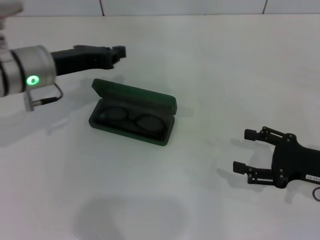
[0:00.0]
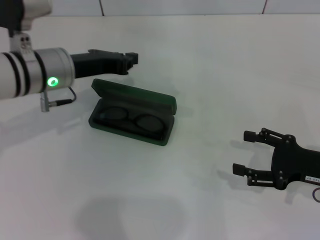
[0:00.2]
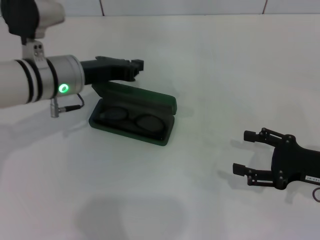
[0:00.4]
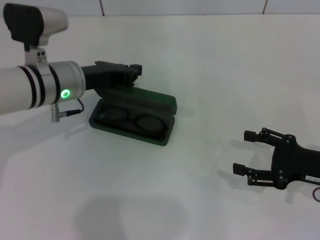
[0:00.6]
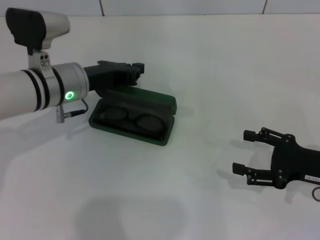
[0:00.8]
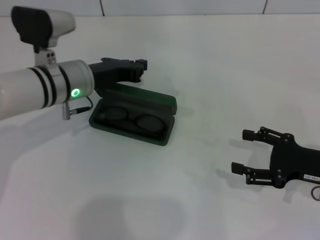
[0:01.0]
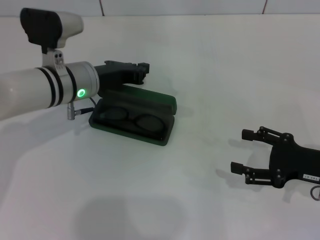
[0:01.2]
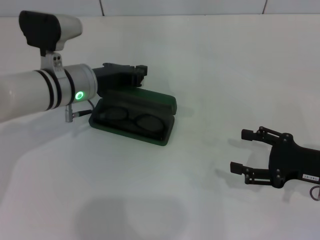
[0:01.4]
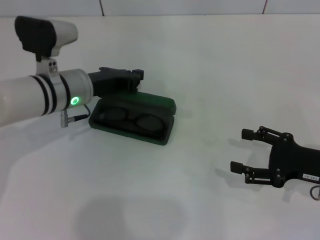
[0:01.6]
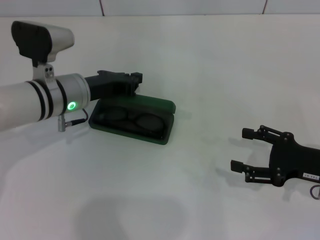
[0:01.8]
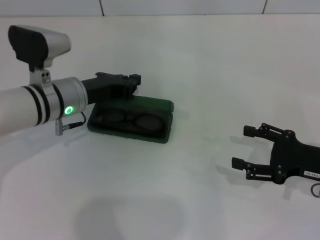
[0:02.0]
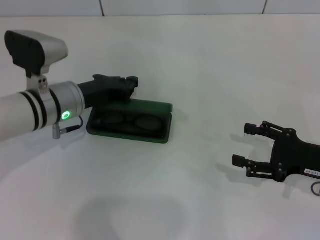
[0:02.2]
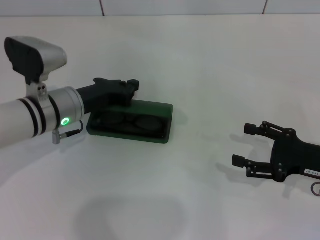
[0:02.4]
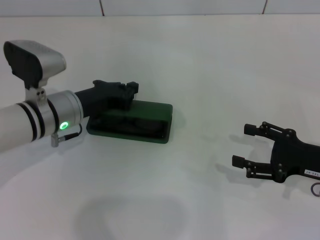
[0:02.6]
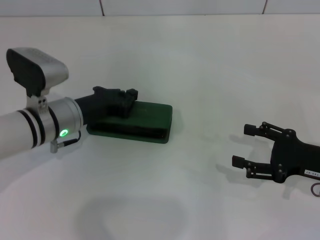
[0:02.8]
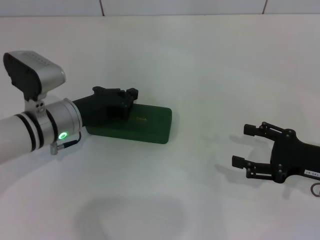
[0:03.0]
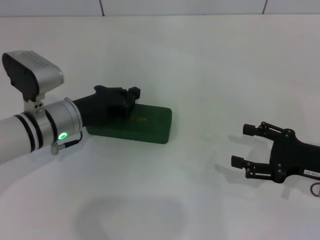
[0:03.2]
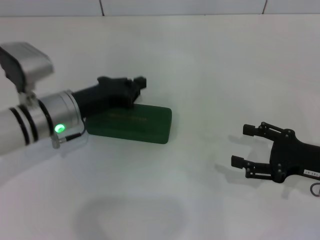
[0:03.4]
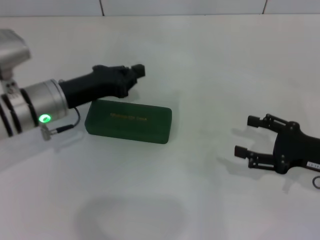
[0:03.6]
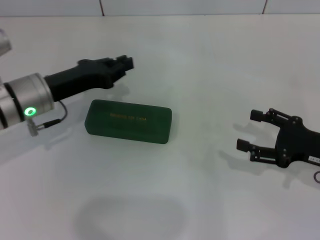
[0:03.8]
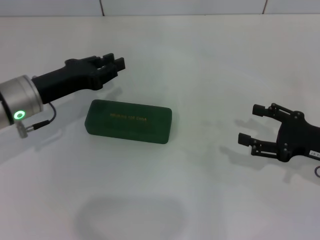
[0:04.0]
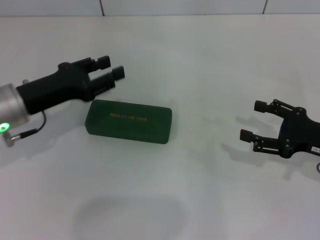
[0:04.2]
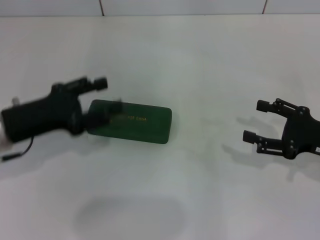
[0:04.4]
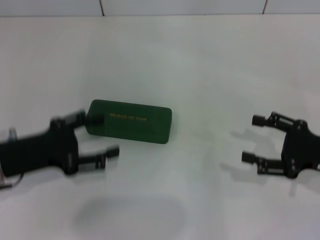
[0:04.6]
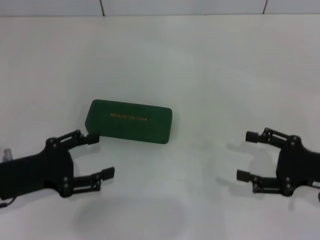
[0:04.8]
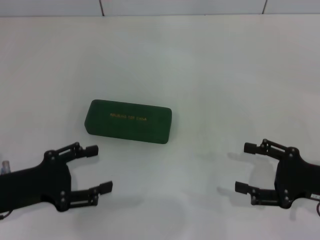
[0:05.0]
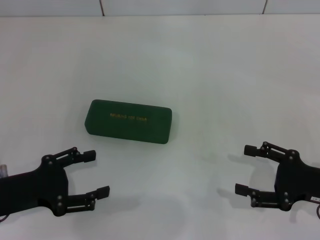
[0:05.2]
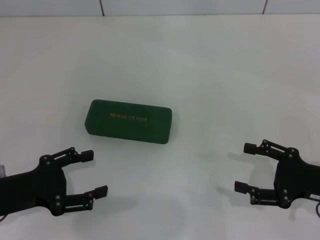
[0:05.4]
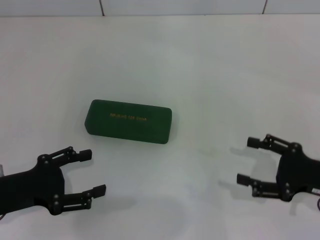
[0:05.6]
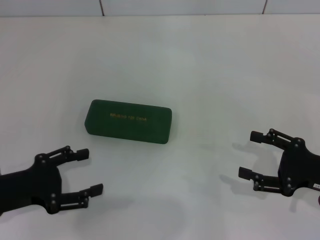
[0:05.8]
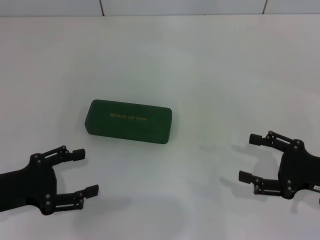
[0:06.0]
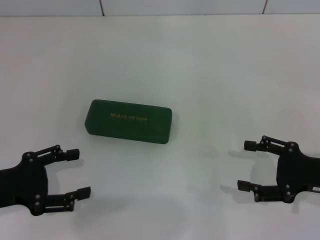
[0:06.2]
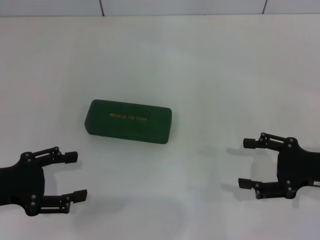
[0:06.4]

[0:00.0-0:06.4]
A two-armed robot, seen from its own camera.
Step, 0.0 to 2.8 s: Close the glasses case with your left hand.
0.0 to 1.6 s: The left gripper travels downward by roughly 5 cm.
1.6 to 3.2 s: The left gripper moves roughly 5 cm.
3.2 to 4.8 s: The left gripper heads backward and to the left, covering some 15 cm, and opens.
4.8 to 6.4 s: The grippers make only small movements.

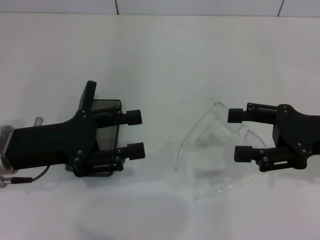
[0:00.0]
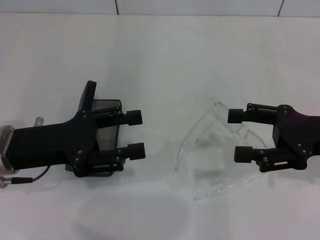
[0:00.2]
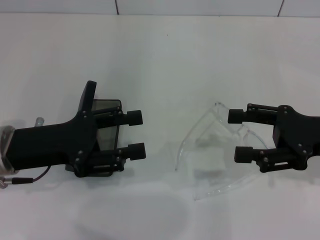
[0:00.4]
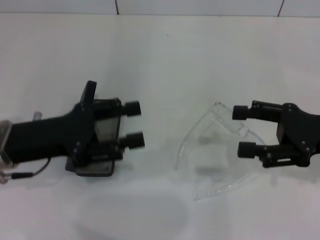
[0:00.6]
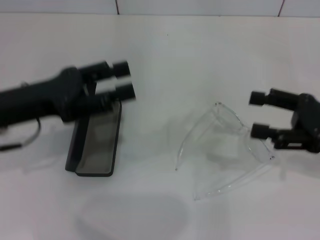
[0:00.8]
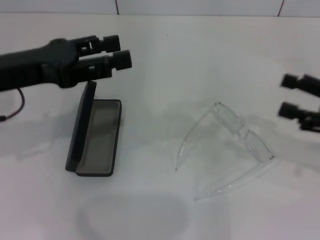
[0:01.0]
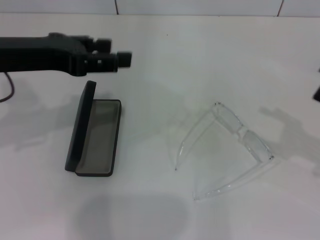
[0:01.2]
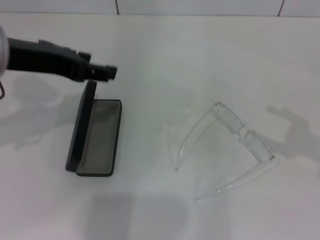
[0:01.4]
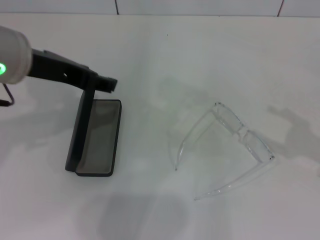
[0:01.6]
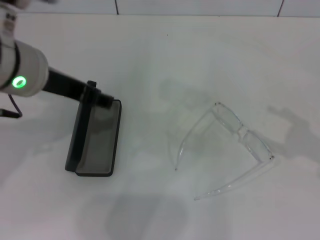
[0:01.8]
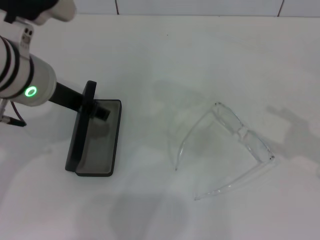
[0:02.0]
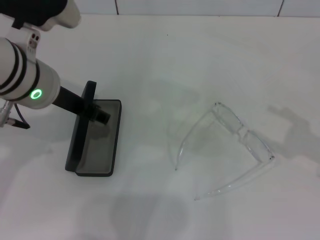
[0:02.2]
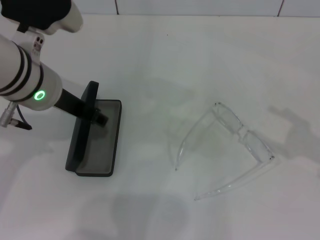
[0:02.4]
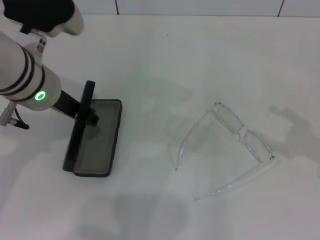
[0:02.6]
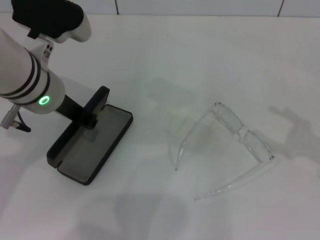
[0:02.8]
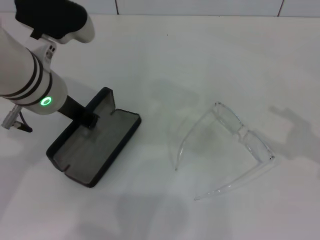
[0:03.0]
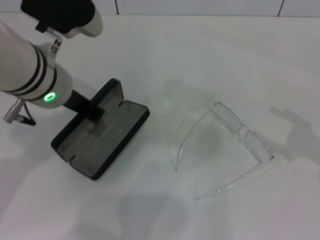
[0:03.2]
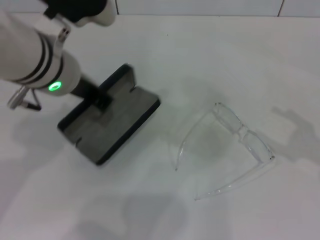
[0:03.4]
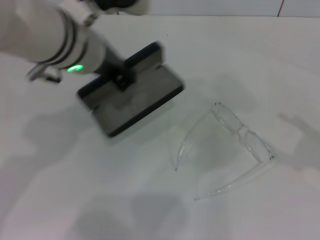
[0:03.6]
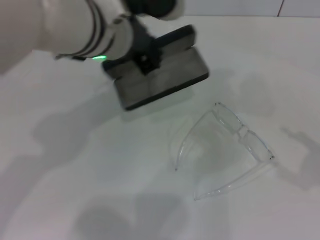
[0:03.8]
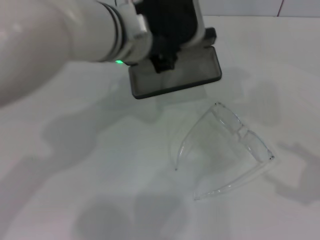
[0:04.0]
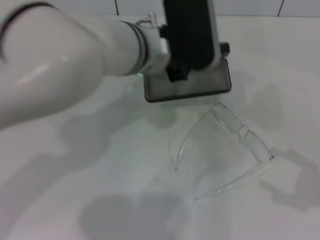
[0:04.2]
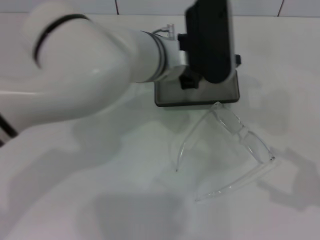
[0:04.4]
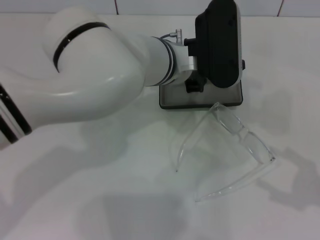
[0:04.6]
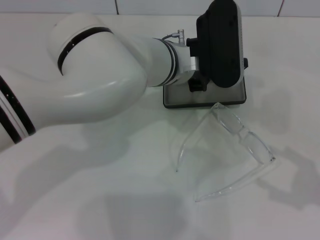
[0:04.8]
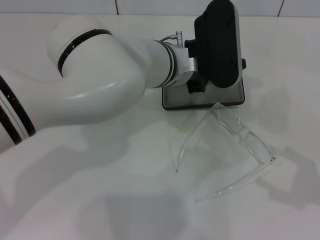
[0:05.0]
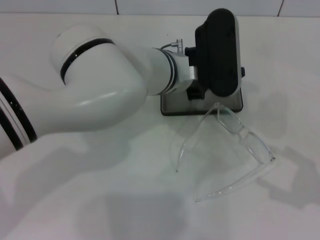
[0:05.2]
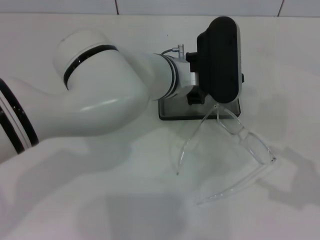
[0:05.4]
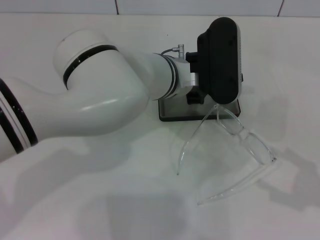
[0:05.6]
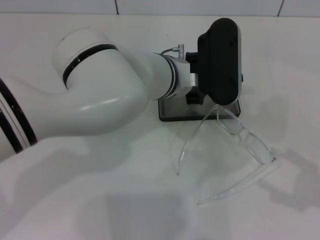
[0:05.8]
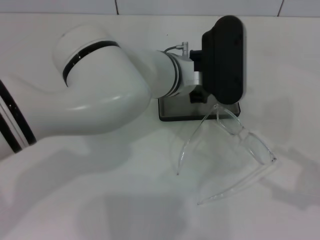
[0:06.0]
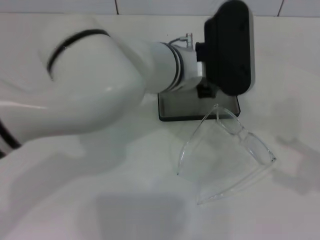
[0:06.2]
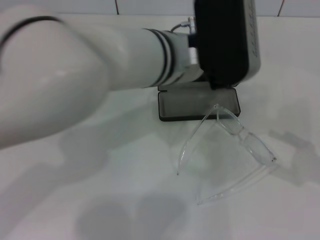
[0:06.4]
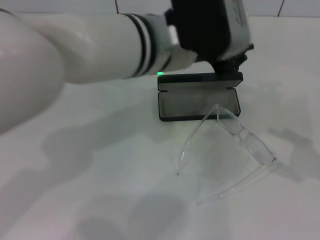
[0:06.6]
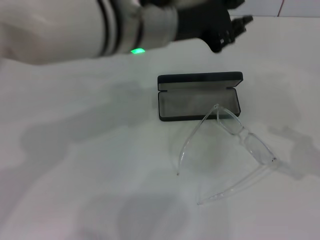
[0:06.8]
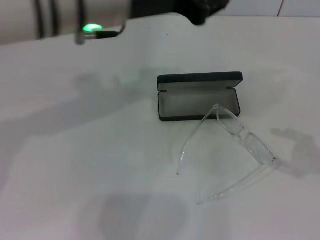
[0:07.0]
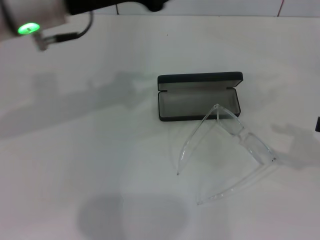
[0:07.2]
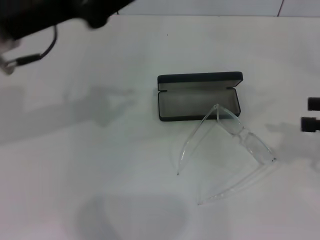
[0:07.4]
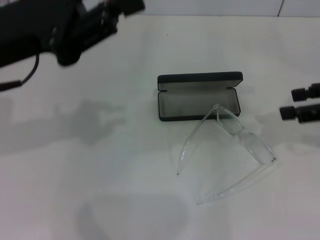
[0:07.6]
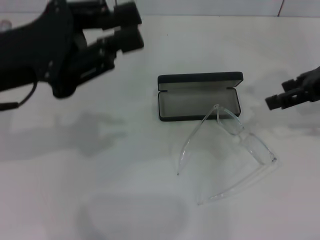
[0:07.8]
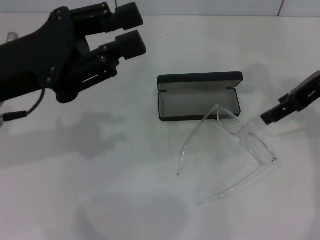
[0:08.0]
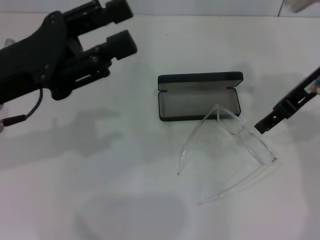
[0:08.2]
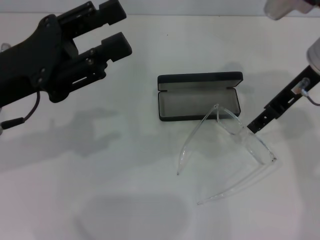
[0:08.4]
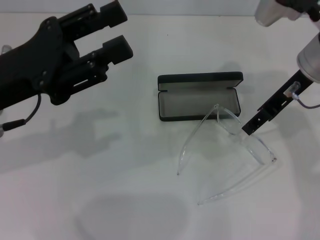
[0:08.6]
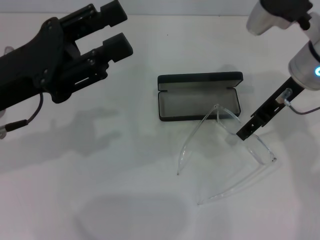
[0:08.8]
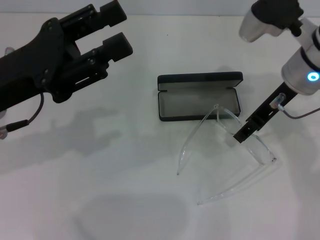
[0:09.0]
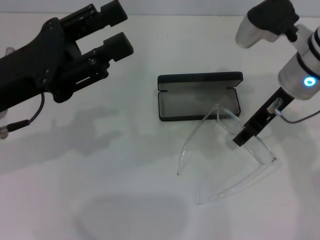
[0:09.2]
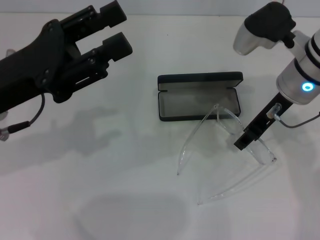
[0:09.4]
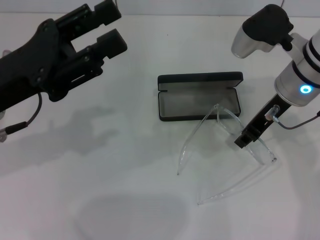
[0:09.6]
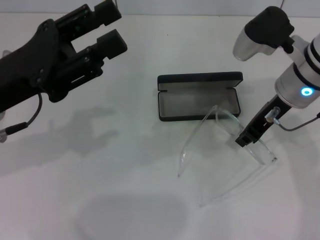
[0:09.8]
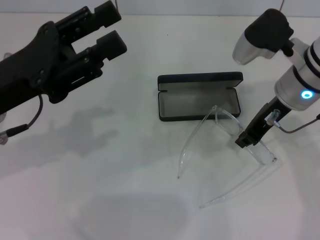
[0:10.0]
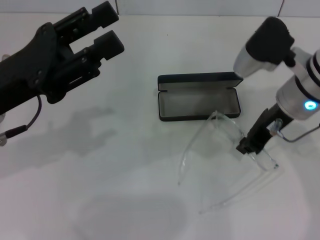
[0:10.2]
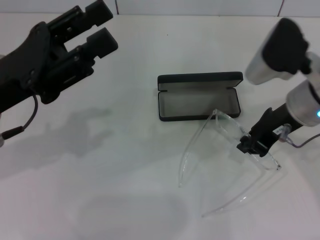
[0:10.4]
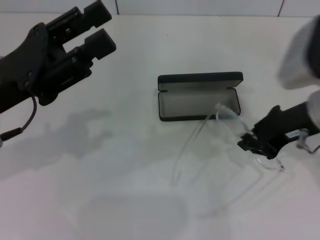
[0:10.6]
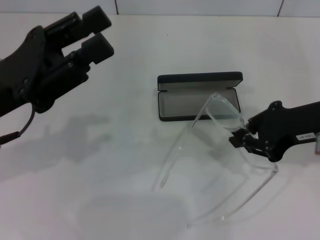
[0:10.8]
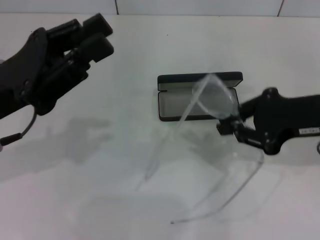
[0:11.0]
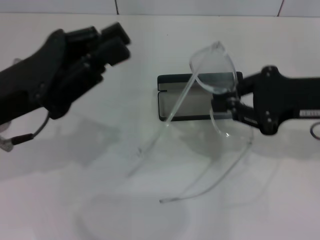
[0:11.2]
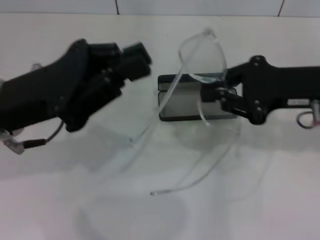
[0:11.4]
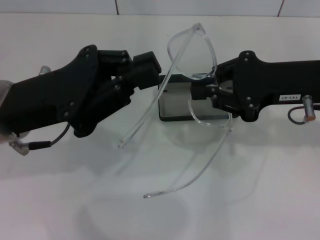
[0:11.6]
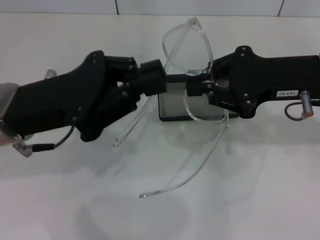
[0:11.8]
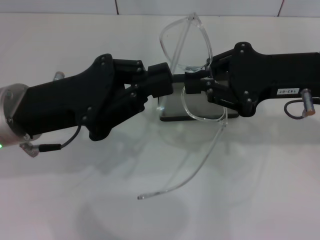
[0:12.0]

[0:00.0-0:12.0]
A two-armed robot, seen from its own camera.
Step, 0.0 to 3.0 s: Grab the glasses case with your left hand.
Step, 3.2 to 5.8 s: Place the glasses case in the center of the table with your left hand.
Step, 6.0 to 10.0 s: Grab the eyeglass frame with your right hand.
0.0 to 1.6 s: The left gripper moves upward and to the right, roughly 15 cm. The right gripper goes about 10 cm to the right.
1.6 to 3.0 s: The left gripper goes approximately 5 cm downward, and closes.
3.0 to 4.4 s: The right gripper goes approximately 5 cm backward; the left gripper travels to the right by about 15 cm.
4.4 to 6.0 s: The grippers stay close to where they were, moving slightly.
6.0 to 7.6 s: The right gripper is displaced forward and upward by roughly 20 cm. The left gripper goes roughly 20 cm to the left.
7.6 to 9.0 s: The left gripper heads downward, covering roughly 5 cm, and opens; the right gripper is displaced to the left and forward by about 15 cm.
9.0 to 10.4 s: The right gripper closes up.
10.4 to 12.0 s: The left gripper closes its fingers.

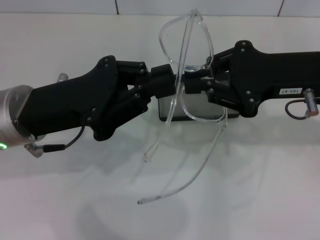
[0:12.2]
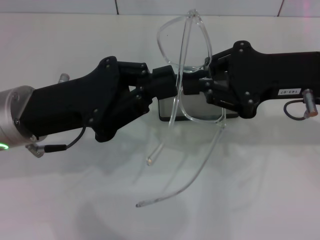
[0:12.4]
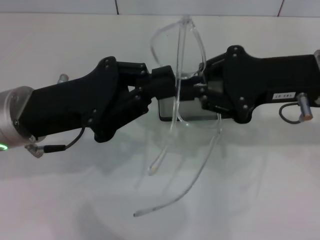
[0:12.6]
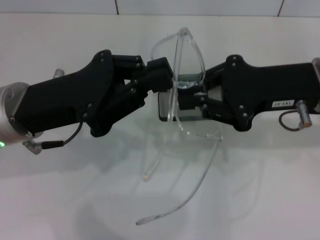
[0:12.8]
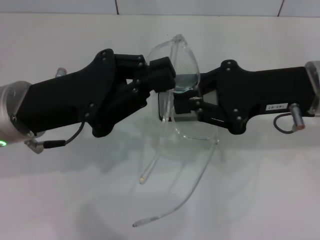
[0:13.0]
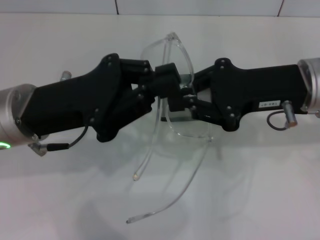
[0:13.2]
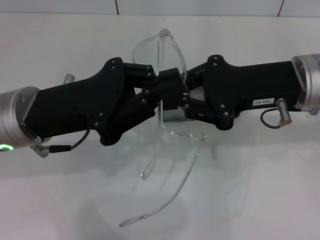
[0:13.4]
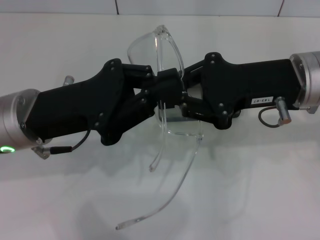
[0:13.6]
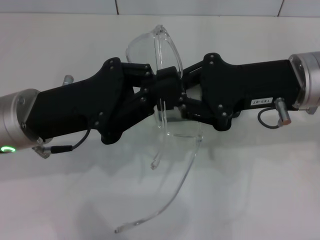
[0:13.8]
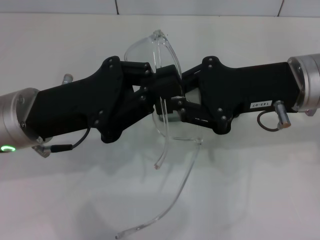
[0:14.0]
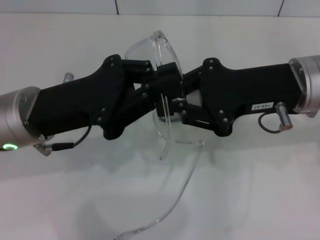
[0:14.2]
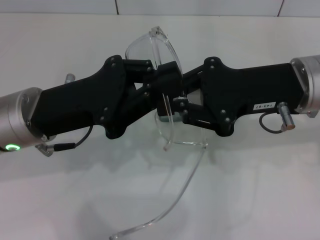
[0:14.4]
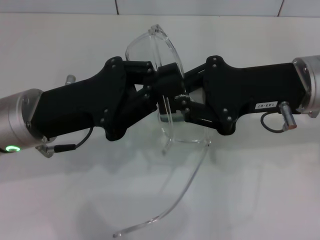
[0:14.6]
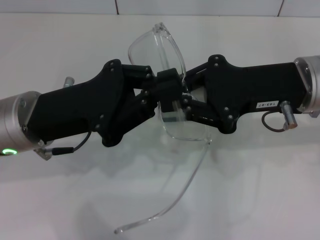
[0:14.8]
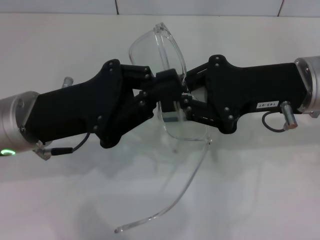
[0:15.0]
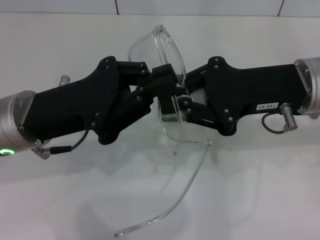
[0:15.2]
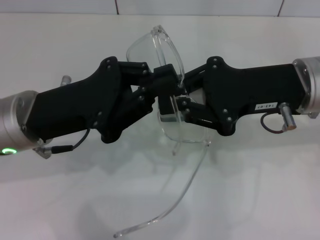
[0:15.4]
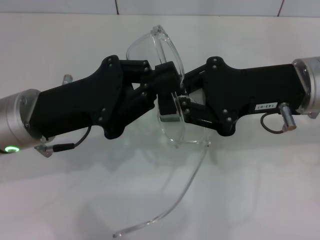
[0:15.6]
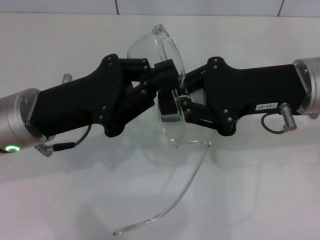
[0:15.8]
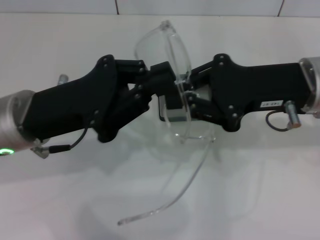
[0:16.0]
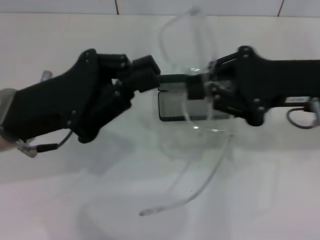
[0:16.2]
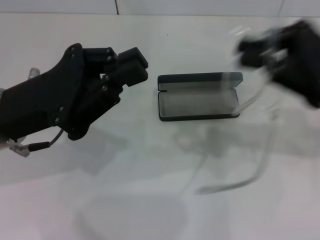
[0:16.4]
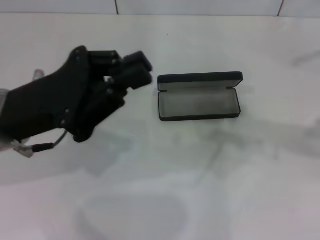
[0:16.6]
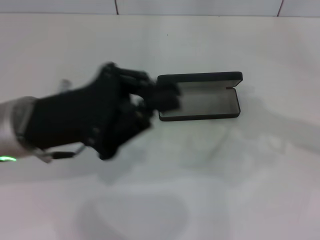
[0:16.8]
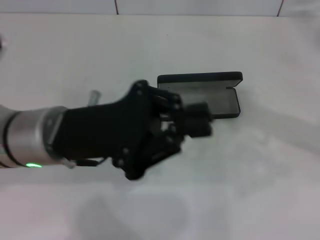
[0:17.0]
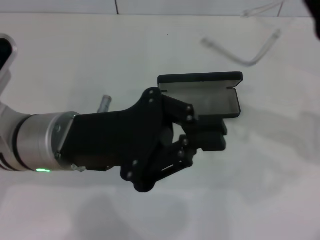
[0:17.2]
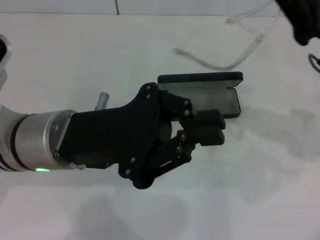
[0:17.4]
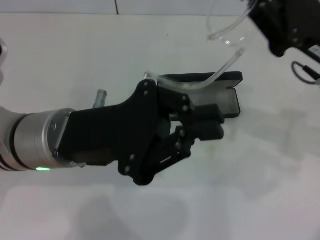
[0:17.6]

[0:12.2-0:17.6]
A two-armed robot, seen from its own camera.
12.2 to 13.6 s: There are only small adjustments of the grippers.
13.6 to 15.0 s: Both grippers stay put.
15.0 to 16.2 s: The grippers stay close to where they were, moving slightly.
16.2 to 17.6 s: The right gripper goes to the right and returns, roughly 10 cm each way. Meanwhile the left gripper shifts some 5 cm to the right.
